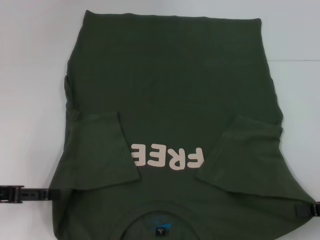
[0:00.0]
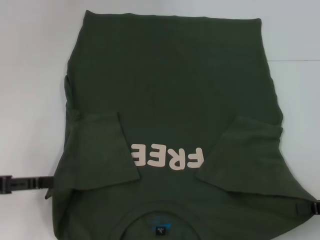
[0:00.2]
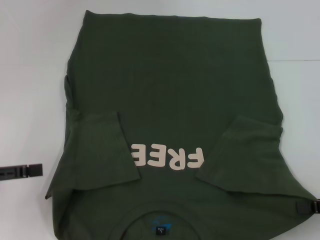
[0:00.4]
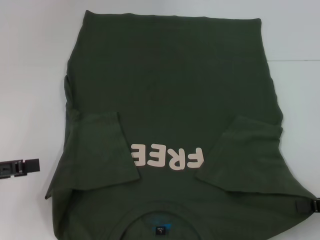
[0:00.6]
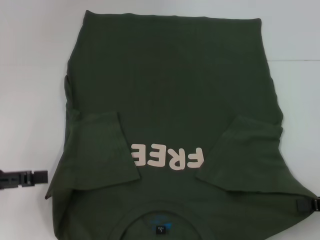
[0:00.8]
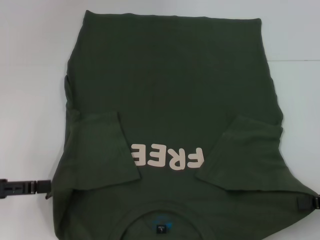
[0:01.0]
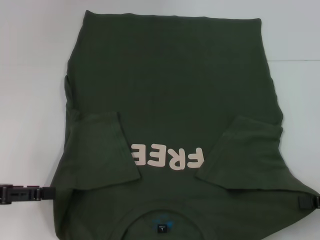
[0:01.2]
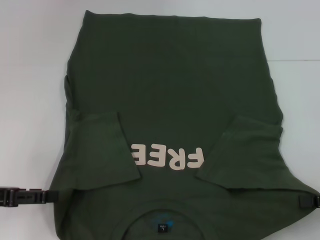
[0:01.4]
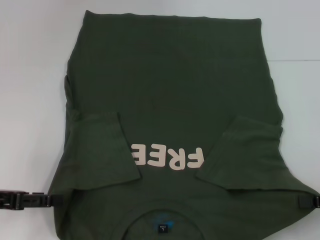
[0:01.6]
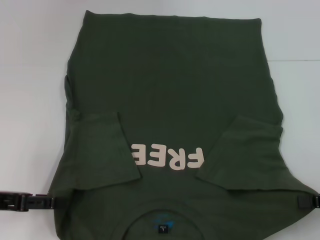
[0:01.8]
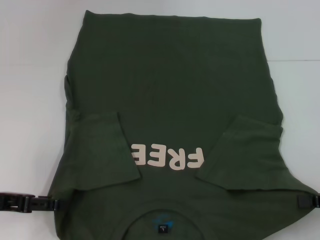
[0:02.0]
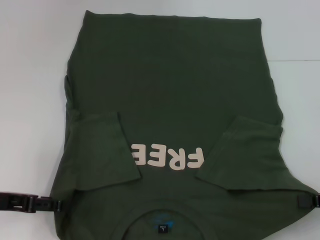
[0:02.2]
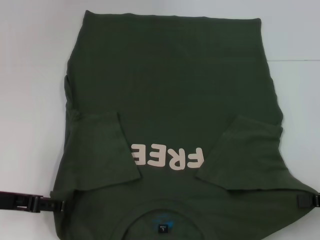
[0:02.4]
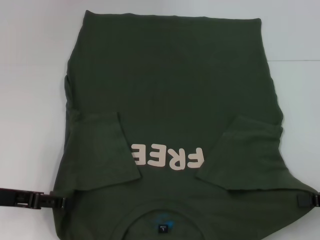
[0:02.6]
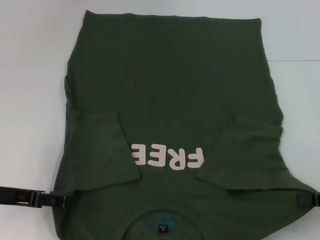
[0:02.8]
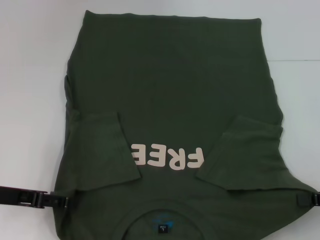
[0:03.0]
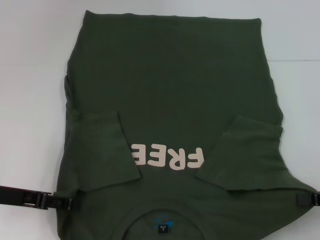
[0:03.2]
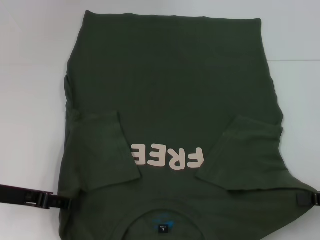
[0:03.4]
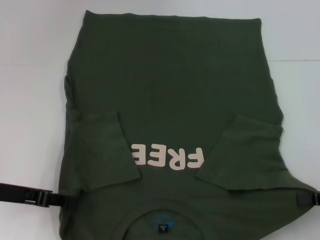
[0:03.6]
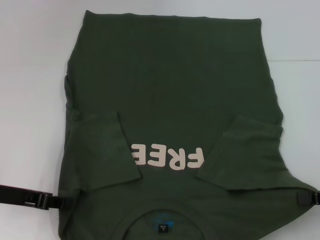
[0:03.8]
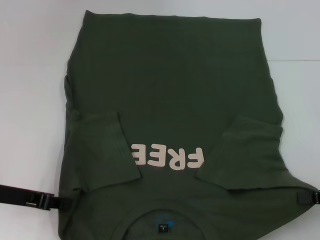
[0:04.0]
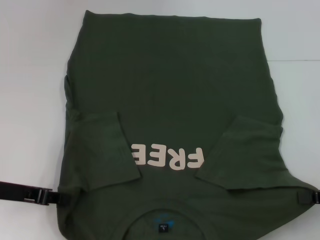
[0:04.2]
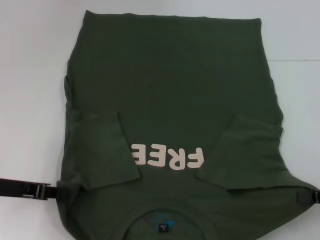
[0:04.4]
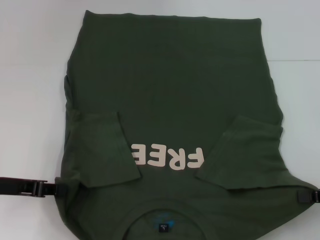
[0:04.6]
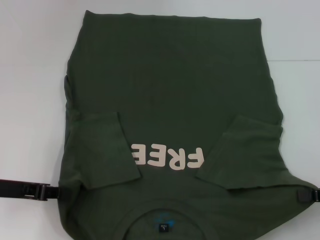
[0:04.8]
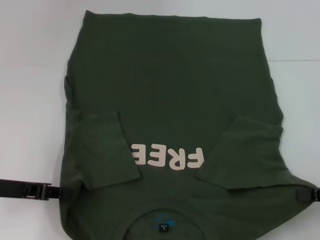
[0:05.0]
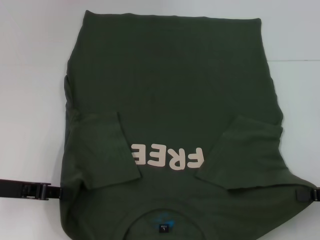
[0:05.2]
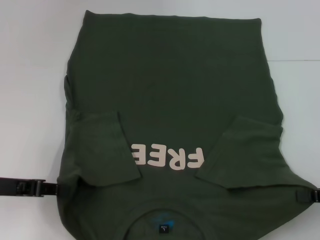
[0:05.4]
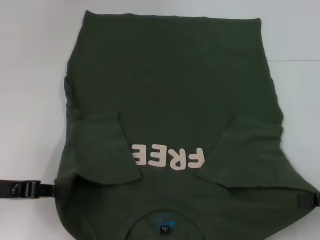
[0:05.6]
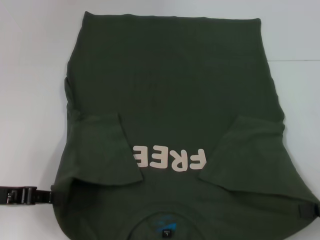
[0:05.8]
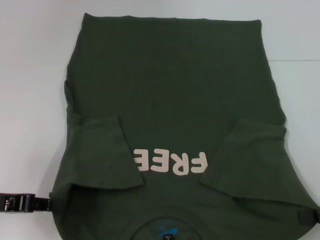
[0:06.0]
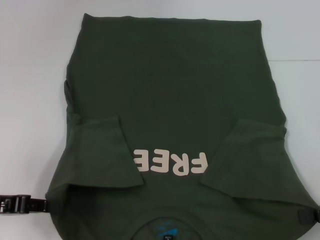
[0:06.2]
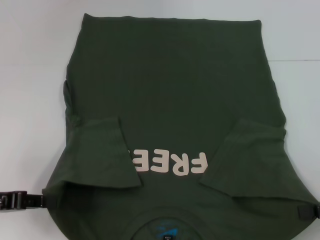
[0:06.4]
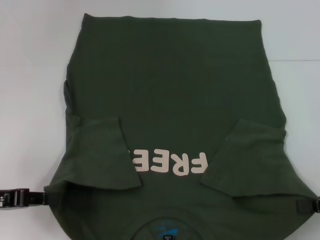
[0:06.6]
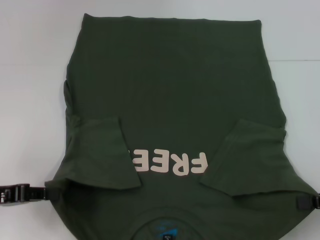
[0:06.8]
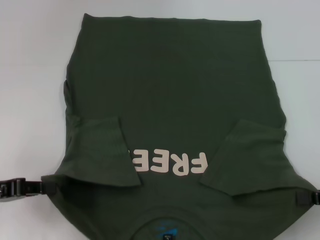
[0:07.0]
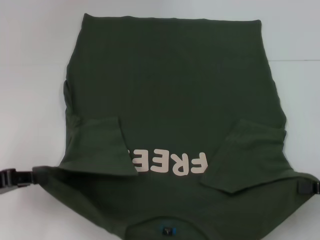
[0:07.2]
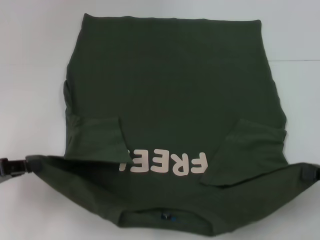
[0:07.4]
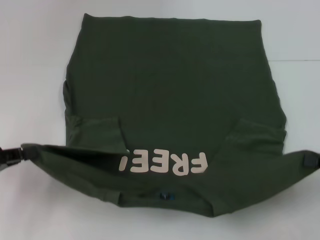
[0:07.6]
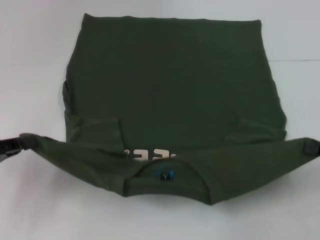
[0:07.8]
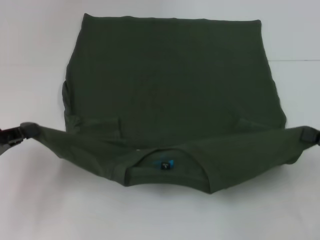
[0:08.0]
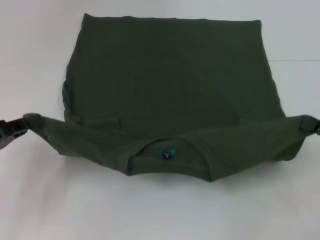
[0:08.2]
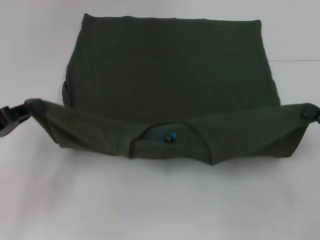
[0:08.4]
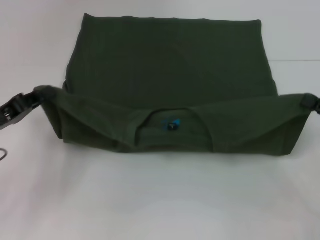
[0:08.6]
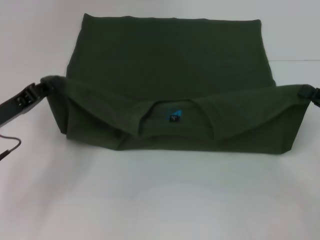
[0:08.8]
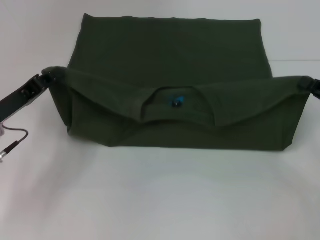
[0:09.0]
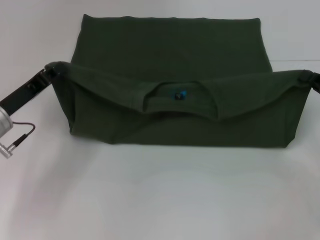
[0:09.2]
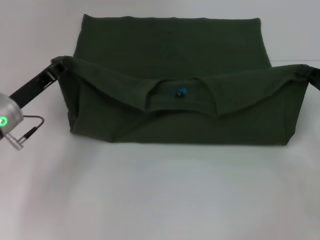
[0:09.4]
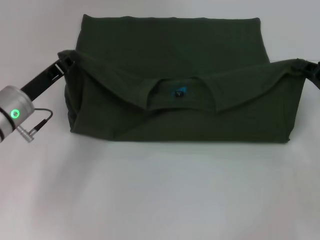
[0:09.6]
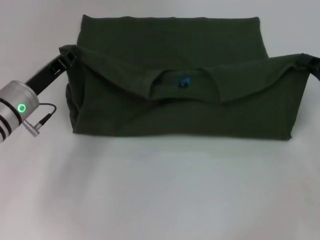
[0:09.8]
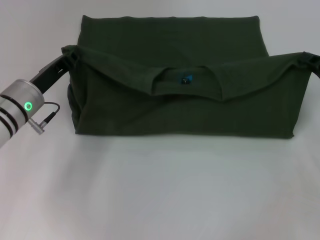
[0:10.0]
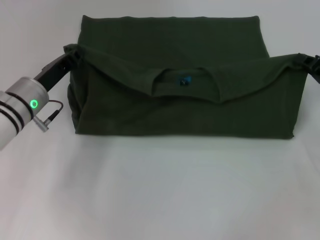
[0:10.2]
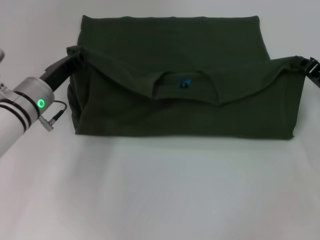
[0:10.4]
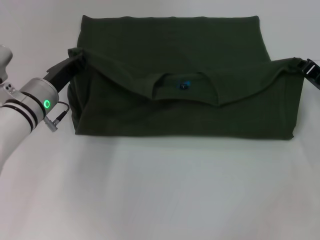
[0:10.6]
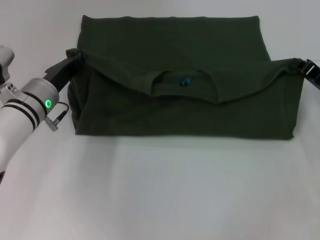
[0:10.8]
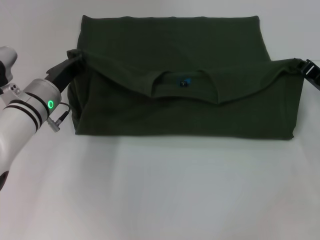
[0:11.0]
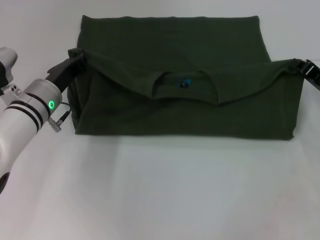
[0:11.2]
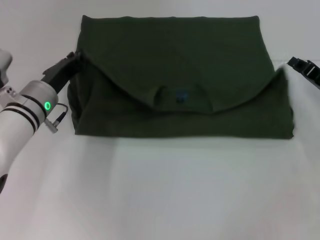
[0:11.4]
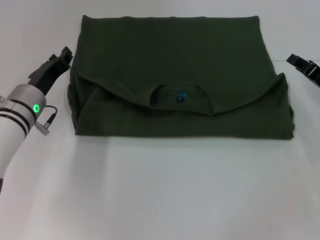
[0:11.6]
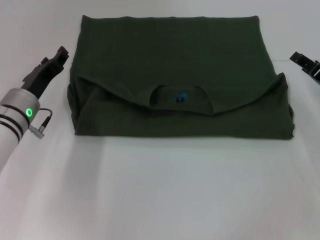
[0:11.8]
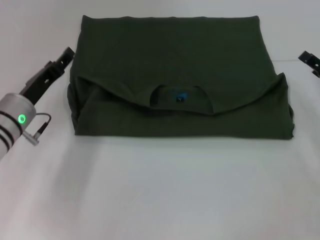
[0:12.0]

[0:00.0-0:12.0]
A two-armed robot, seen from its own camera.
0:00.0 to 0:03.0: The grippers move only a little.
0:03.0 to 0:04.4: The left gripper closes its fingers.
0:04.4 to 0:06.0: There are only small adjustments of the grippers.
0:07.6 to 0:09.0: The left gripper is displaced forward and to the right by approximately 10 cm. Meanwhile the right gripper moves forward, roughly 5 cm.
0:09.0 to 0:10.4: The right gripper goes roughly 5 cm forward. Meanwhile the left gripper moves to the right and forward, roughly 10 cm.
0:10.4 to 0:12.0: The right gripper opens its fingers. Meanwhile the left gripper opens its fingers.

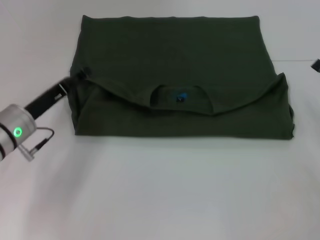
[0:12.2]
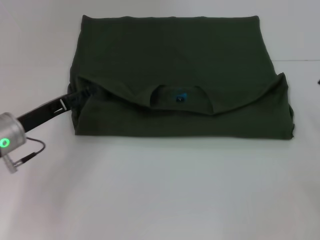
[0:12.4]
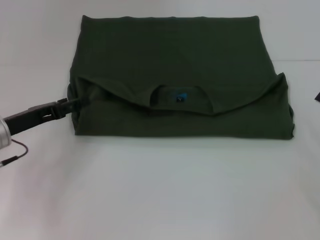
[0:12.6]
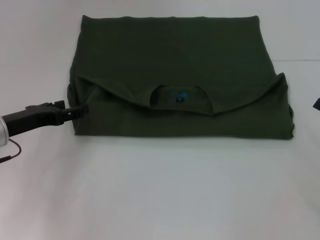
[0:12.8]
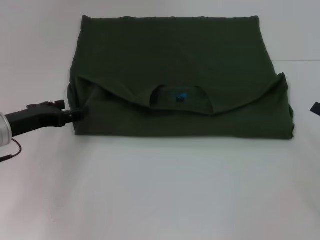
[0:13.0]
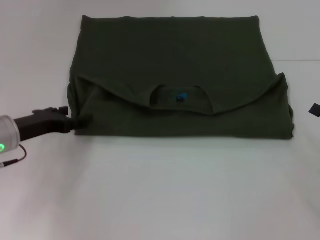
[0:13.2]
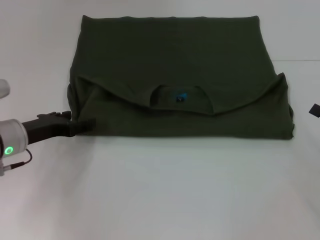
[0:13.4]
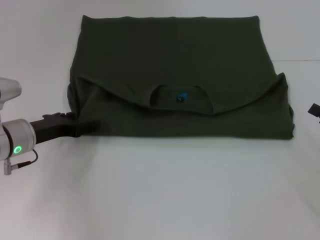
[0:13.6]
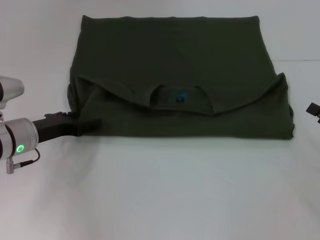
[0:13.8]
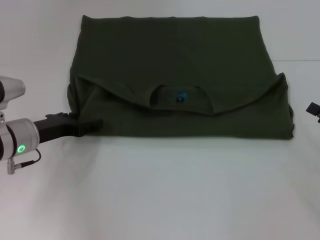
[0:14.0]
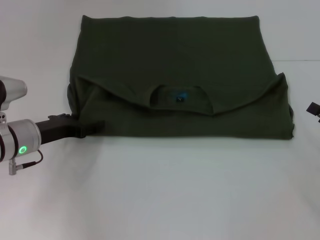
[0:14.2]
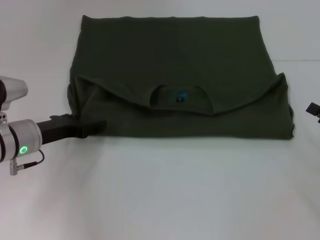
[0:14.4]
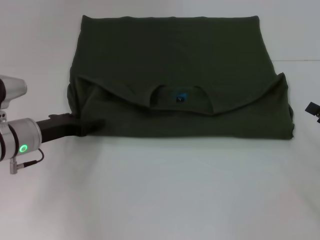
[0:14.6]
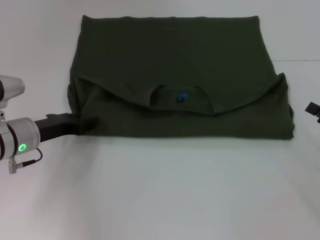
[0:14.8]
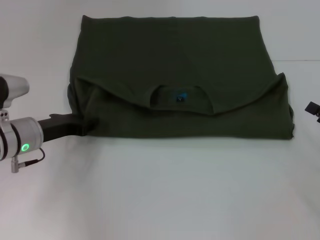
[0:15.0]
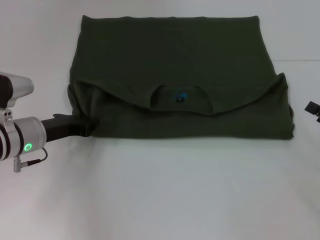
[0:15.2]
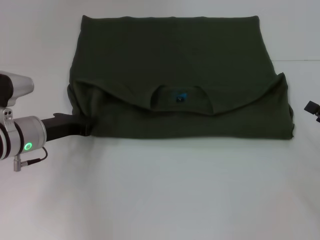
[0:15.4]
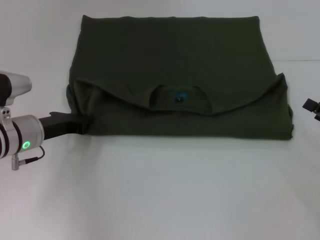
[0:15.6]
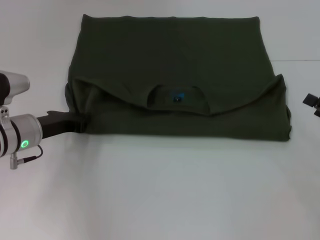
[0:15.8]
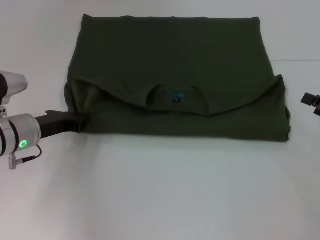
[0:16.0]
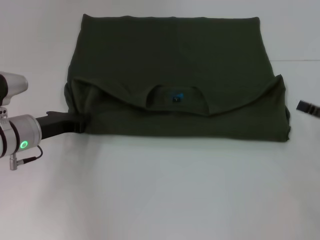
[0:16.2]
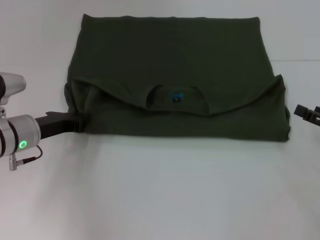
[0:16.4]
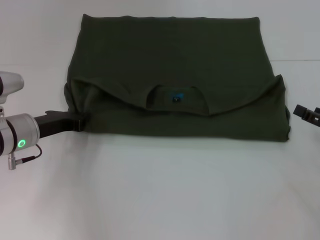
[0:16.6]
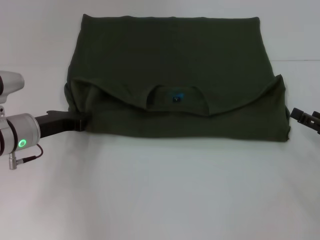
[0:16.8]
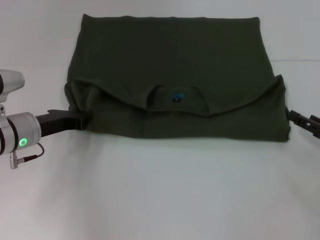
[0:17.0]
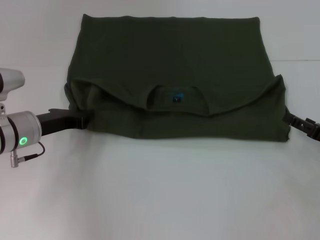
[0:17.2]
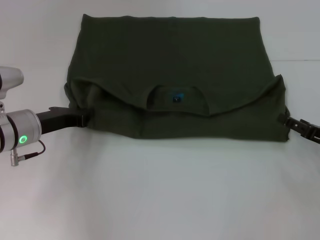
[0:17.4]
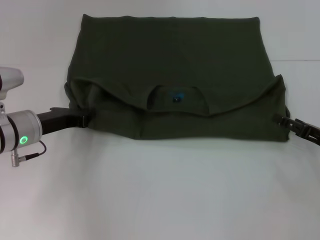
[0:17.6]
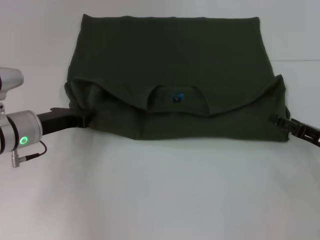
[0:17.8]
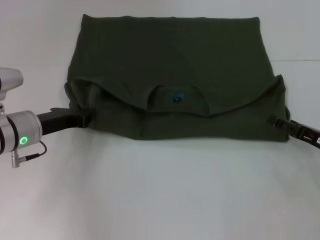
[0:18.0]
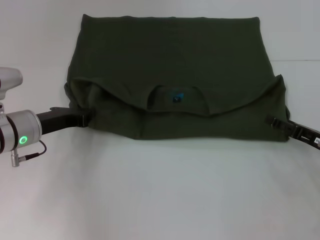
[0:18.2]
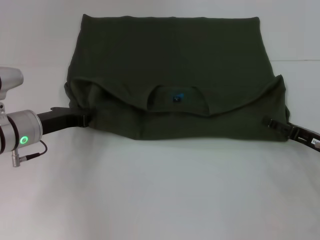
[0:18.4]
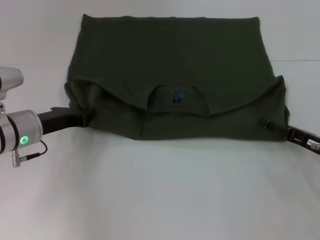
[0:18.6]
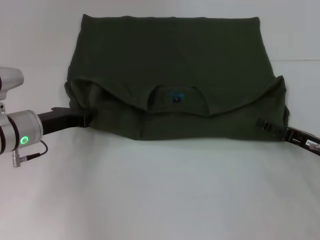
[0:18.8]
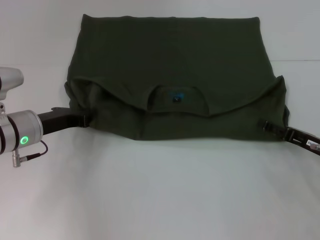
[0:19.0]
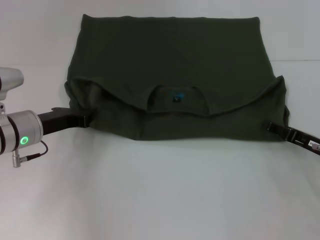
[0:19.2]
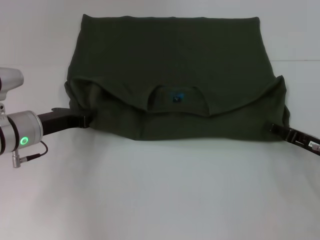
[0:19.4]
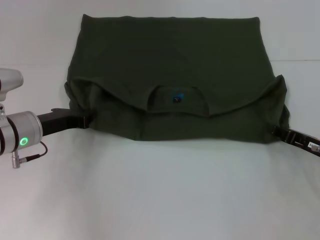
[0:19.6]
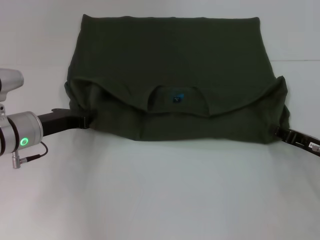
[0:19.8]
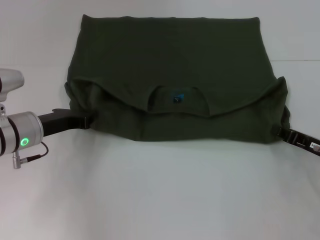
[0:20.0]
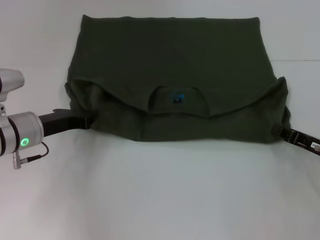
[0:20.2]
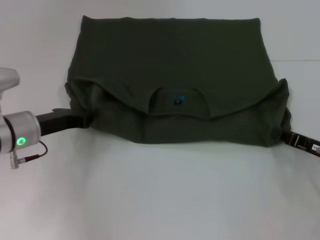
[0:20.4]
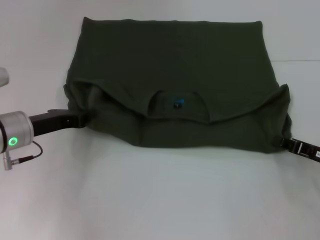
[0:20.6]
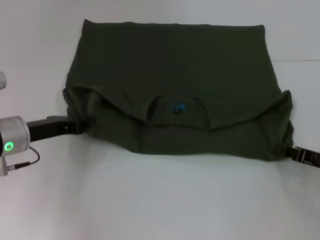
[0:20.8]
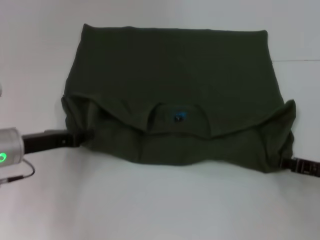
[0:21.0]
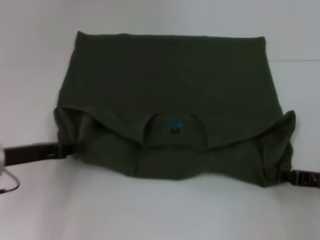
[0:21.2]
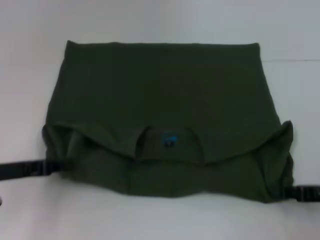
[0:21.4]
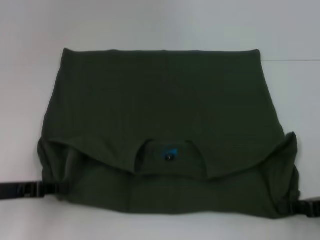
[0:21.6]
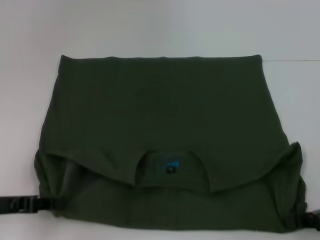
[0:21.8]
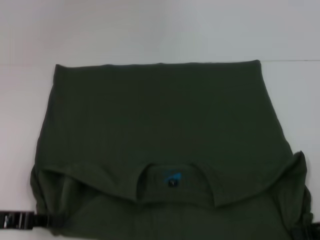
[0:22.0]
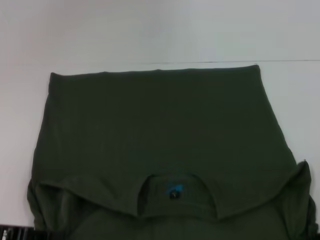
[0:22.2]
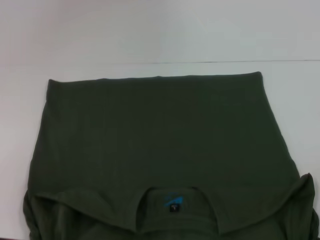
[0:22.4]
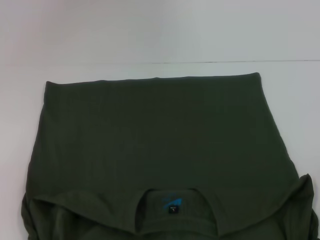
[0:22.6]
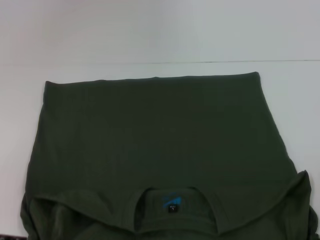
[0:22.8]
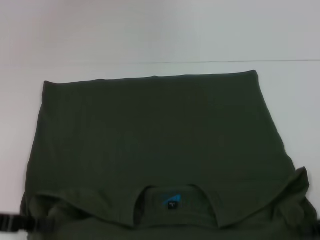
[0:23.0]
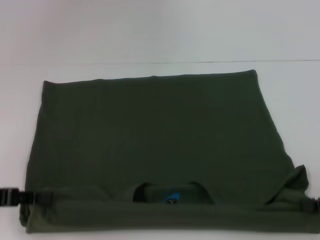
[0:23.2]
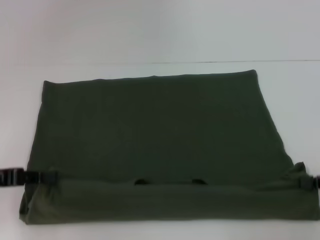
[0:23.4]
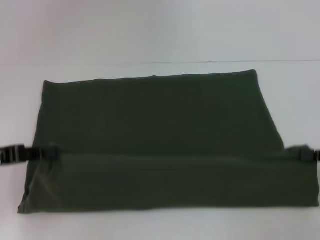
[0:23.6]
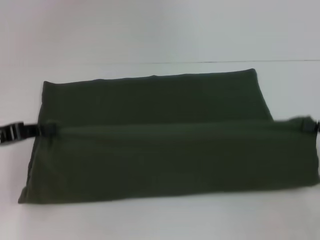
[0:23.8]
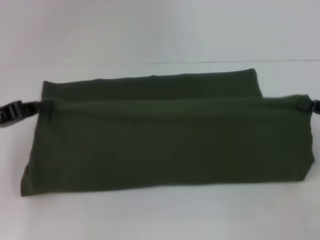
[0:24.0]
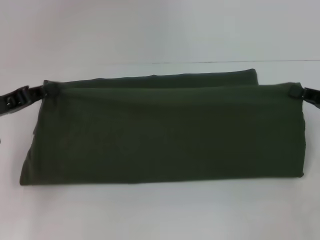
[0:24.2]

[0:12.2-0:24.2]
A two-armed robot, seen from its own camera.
Step, 0:12.2 to 0:22.4: Pull the clothes with your left hand.
Step, 0:12.2 to 0:22.4: Pull the clothes with your right hand.
0:13.8 to 0:15.2: The left gripper closes up.
0:15.2 to 0:16.6: The grippers move only a little.
0:16.6 to 0:18.2: The right gripper moves about 5 cm.
0:18.2 to 0:19.8: The right gripper closes up.
0:19.8 to 0:21.2: The left gripper travels backward by about 5 cm.
0:21.2 to 0:22.6: The left gripper heads backward, covering about 10 cm, while the right gripper moves approximately 5 cm.
0:22.6 to 0:24.2: The grippers both shift forward by roughly 10 cm.
